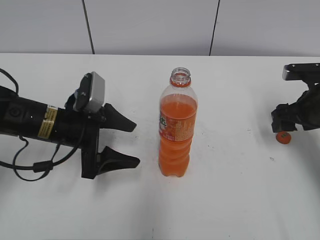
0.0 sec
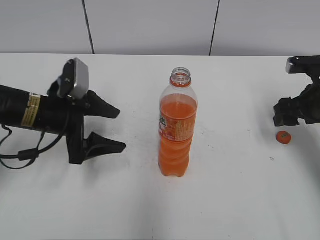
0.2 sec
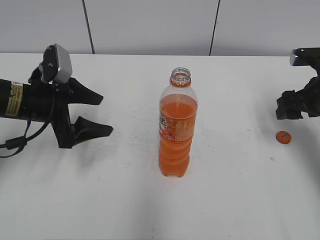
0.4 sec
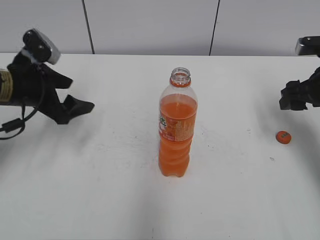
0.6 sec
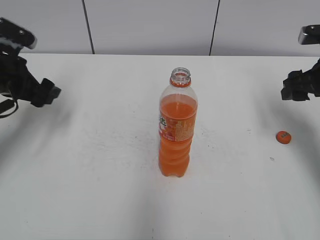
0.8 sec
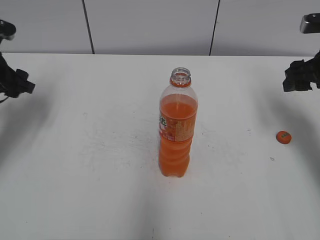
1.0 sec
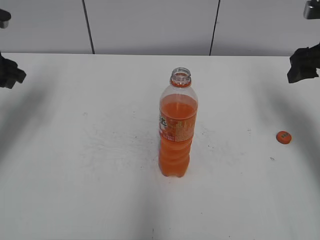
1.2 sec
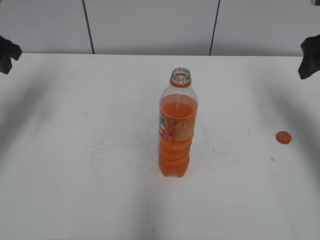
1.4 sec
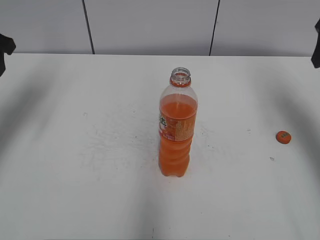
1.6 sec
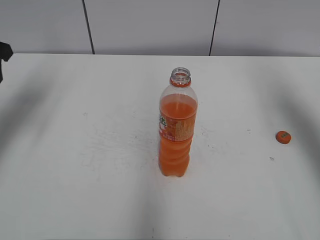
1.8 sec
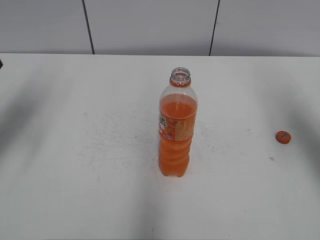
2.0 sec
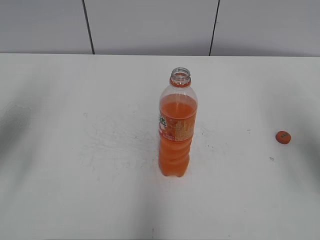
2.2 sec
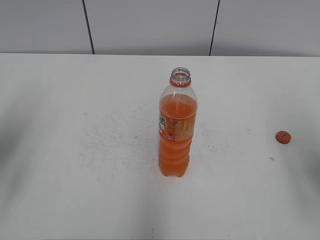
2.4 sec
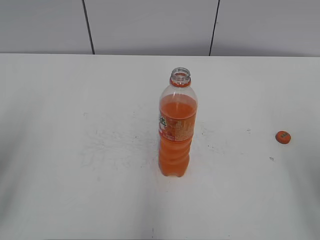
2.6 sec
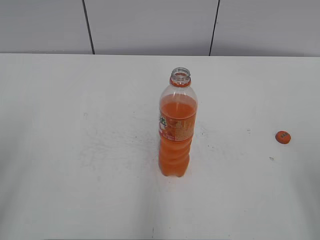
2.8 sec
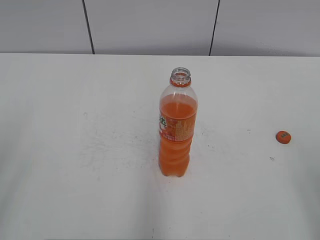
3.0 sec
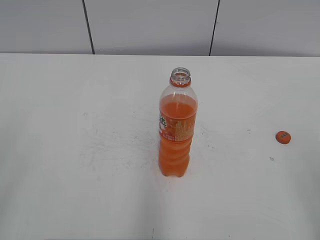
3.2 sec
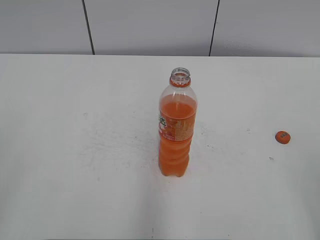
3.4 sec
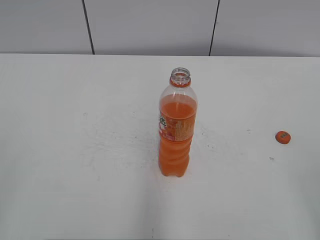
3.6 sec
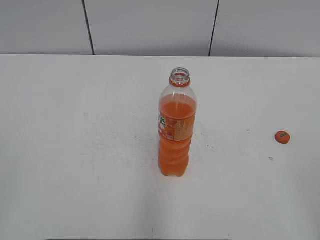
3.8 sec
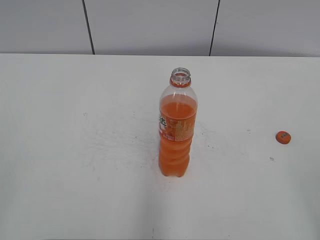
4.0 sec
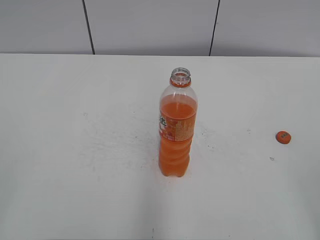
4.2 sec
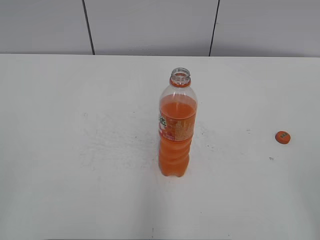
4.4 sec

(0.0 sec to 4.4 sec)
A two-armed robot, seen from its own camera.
0.0 sec - 1.4 sec: The right gripper is displaced upward by about 15 cm, while the left gripper shifts some 20 cm upward, to the left and forward, and closes.
1.4 sec - 3.0 sec: Both grippers move backward, approximately 30 cm.
